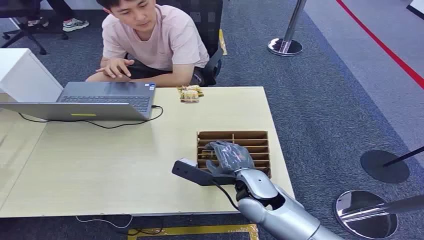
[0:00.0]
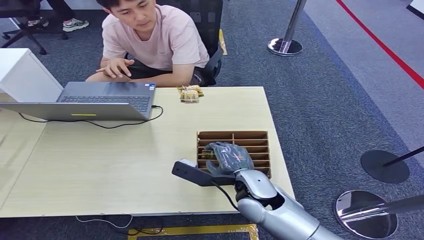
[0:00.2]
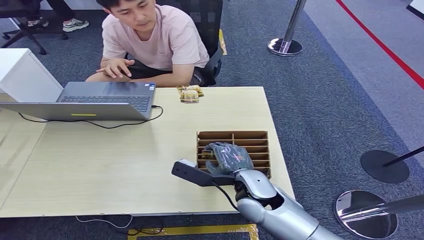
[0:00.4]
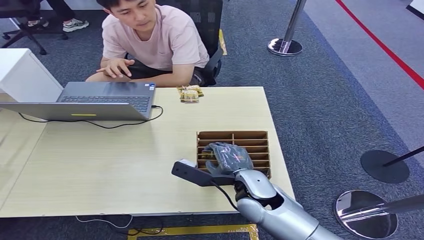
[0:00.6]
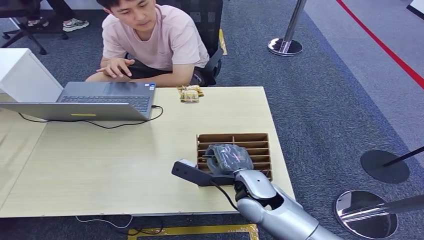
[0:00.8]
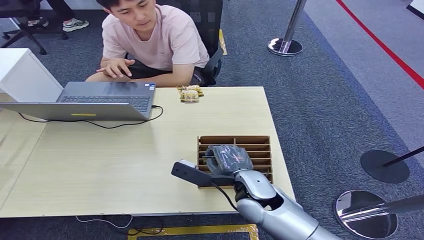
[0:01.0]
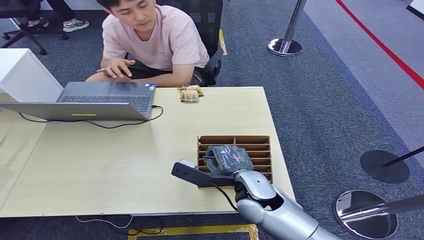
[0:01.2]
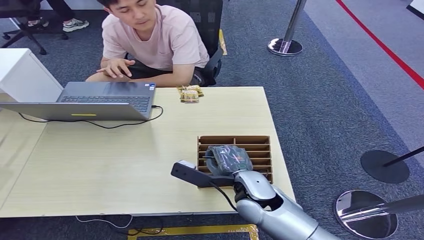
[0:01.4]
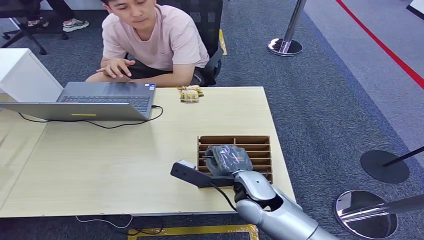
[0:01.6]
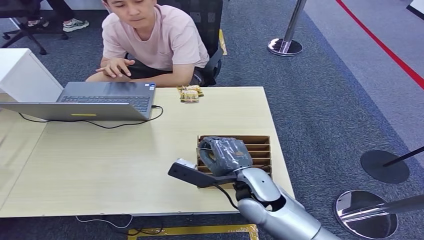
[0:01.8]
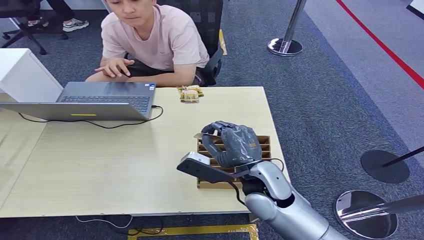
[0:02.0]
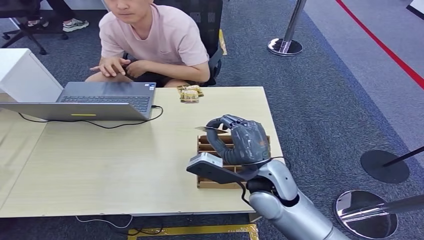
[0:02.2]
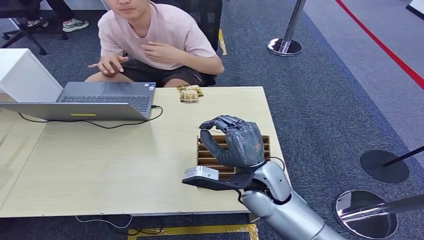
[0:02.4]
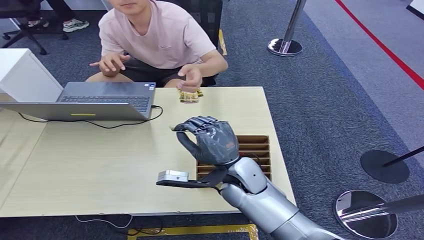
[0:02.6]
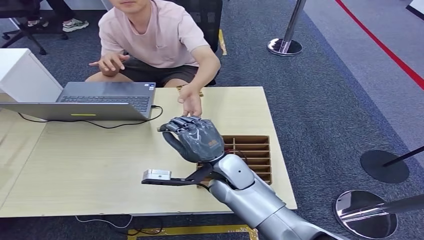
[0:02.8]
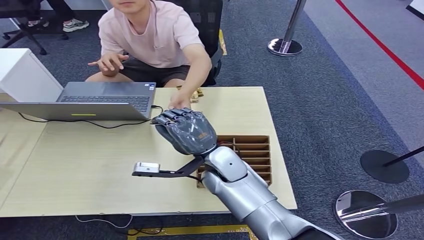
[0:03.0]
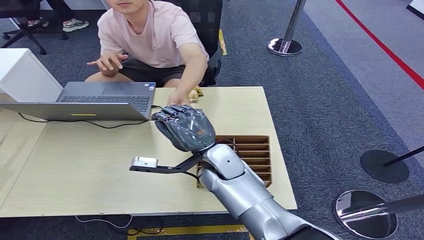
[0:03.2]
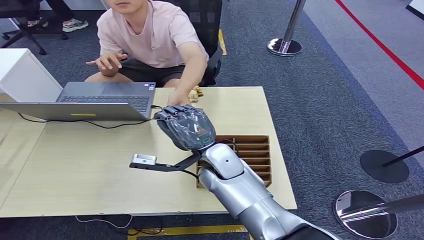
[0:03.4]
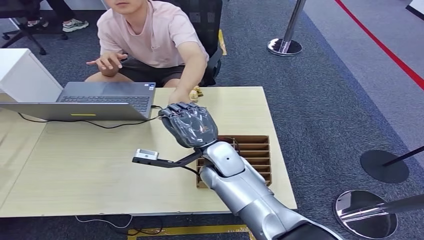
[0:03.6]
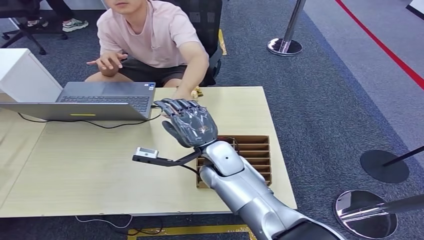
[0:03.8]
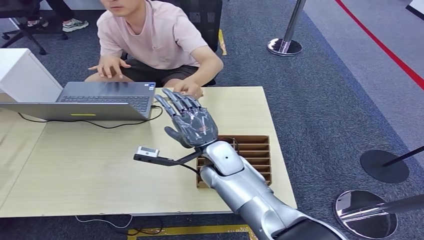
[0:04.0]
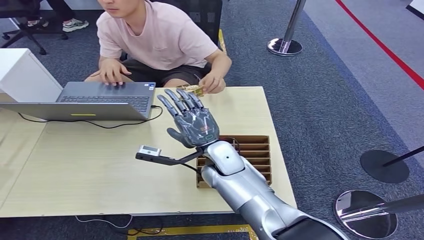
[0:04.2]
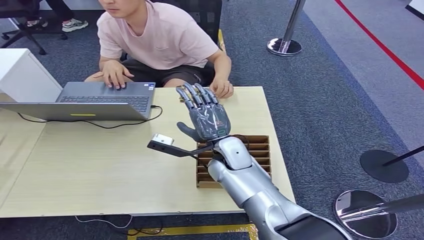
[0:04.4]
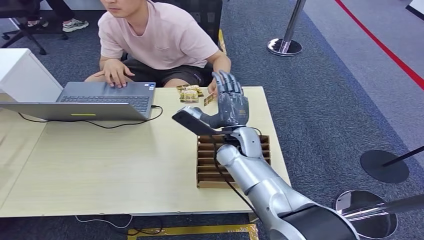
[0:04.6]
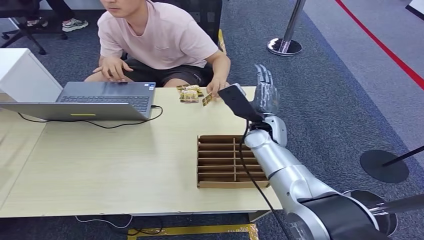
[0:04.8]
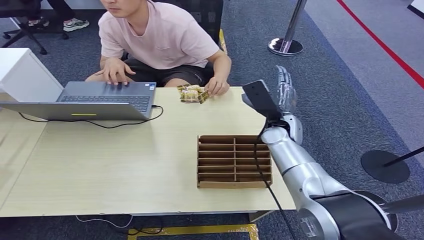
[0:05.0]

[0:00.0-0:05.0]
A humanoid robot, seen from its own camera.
Step, 0:00.0 to 0:02.0: Pick up the key card from the card box.
Step, 0:02.2 to 0:05.0: Hand the key card to the target.
0:01.6 to 0:03.4: The right hand travels forward and to the left by approximately 10 cm.

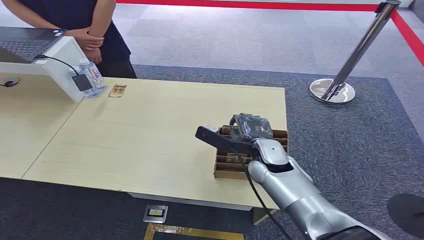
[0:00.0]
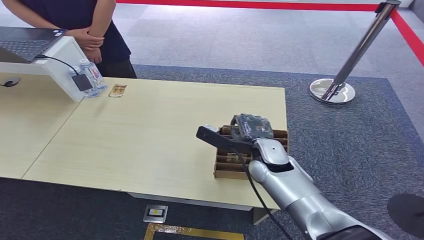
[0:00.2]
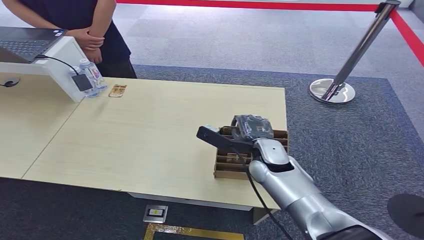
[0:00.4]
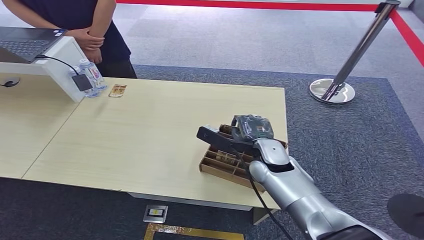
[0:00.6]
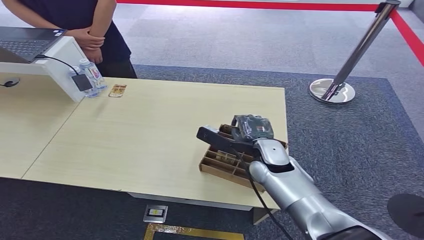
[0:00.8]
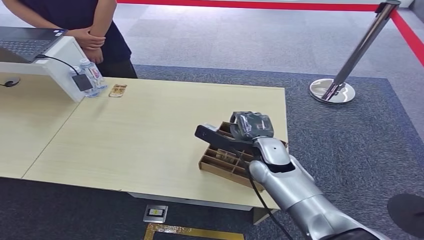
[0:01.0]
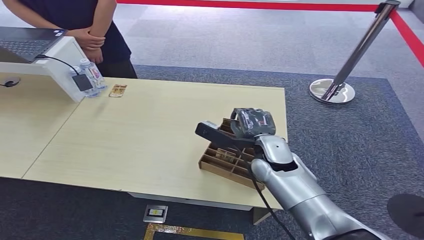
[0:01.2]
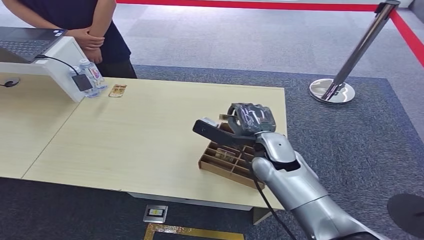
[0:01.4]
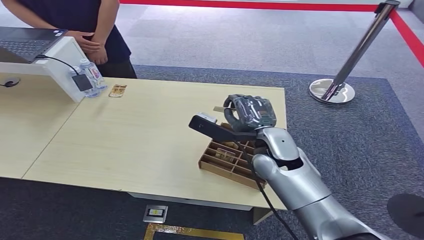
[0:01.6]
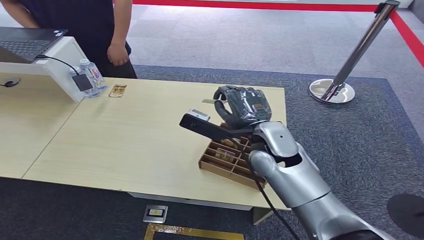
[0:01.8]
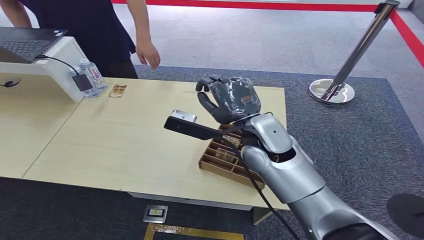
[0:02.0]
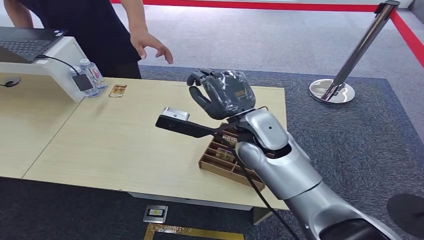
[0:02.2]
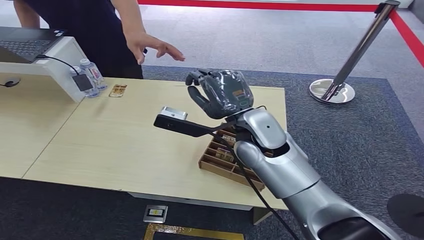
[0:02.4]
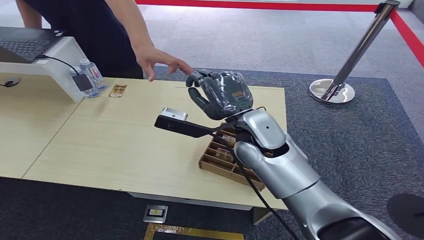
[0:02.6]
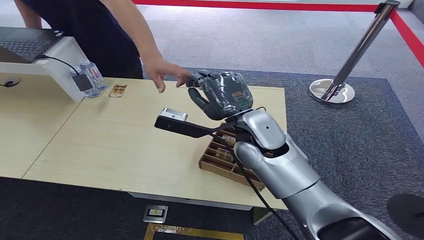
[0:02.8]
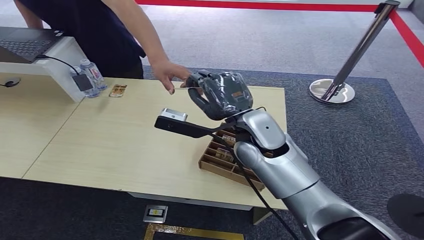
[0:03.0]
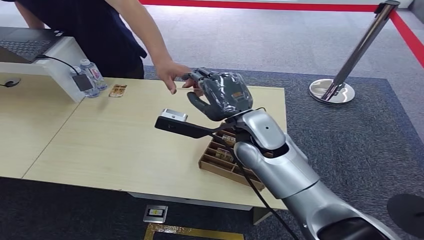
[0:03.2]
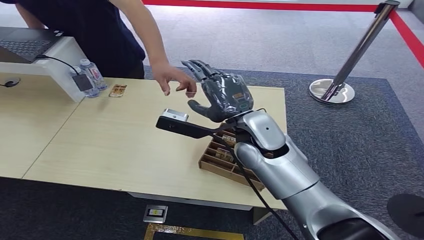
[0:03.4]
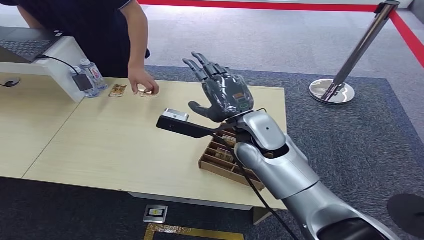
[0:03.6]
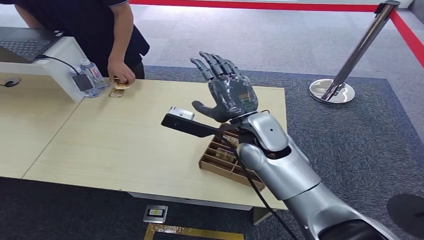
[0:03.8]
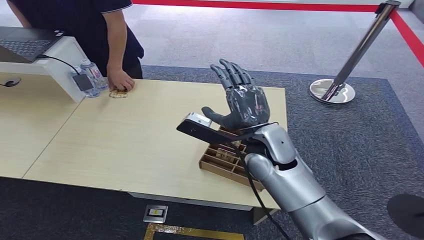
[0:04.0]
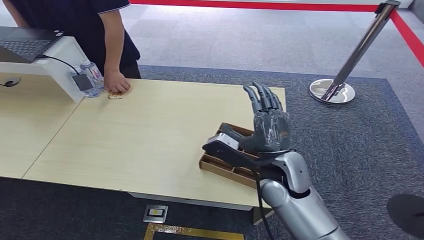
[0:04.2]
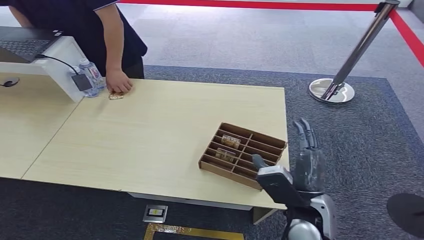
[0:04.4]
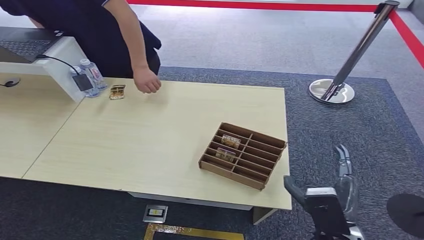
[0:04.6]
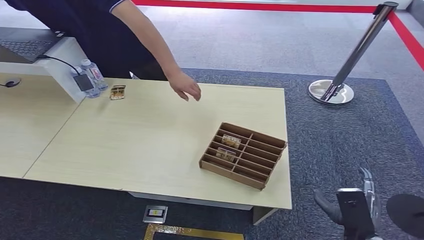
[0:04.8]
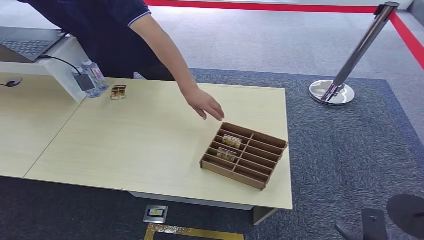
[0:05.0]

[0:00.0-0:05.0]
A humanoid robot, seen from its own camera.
Step, 0:00.0 to 0:02.4: Pick up the key card from the card box.
Step, 0:02.6 to 0:05.0: Hand the key card to the target.
0:01.6 to 0:03.4: The right hand goes approximately 5 cm upward.
